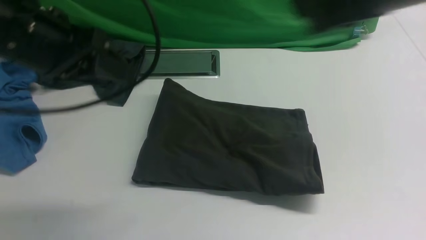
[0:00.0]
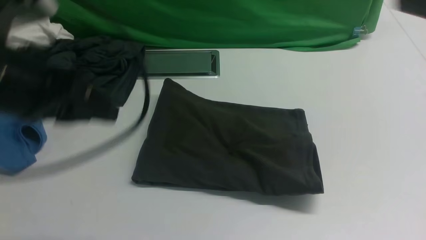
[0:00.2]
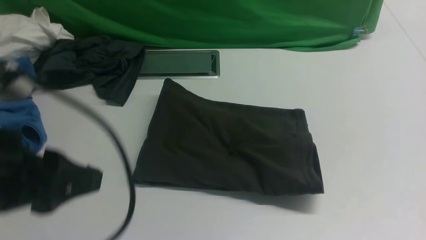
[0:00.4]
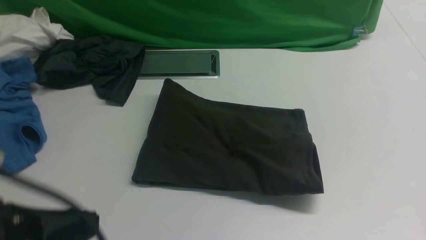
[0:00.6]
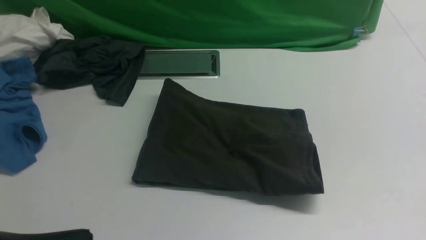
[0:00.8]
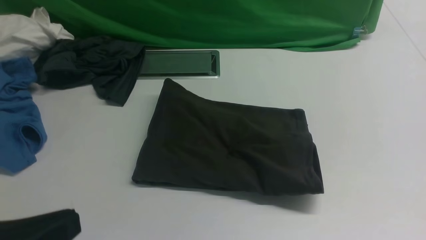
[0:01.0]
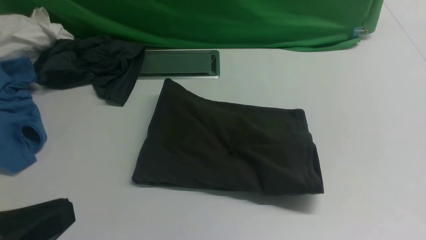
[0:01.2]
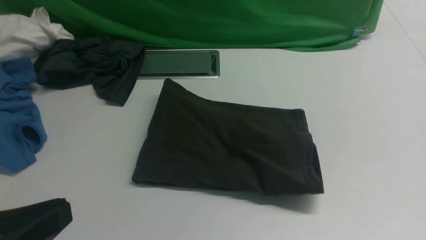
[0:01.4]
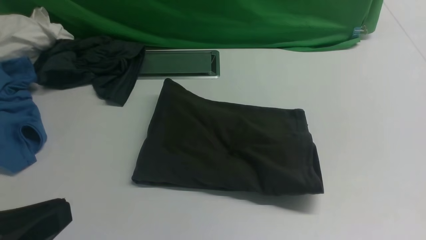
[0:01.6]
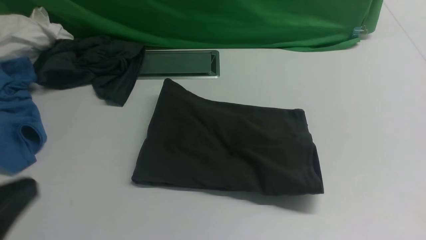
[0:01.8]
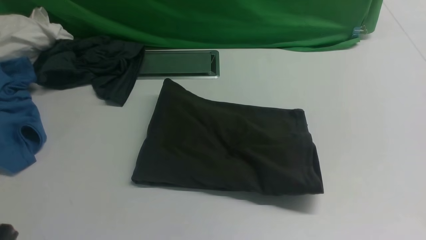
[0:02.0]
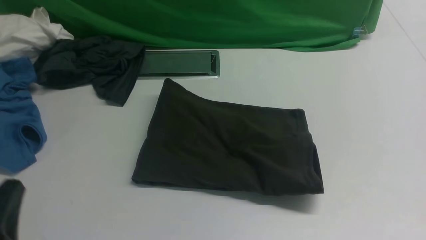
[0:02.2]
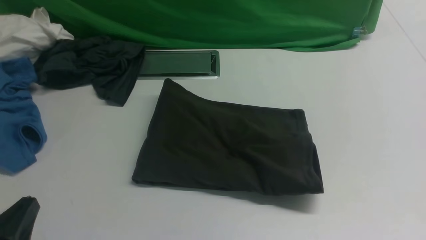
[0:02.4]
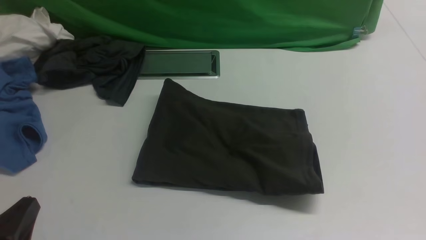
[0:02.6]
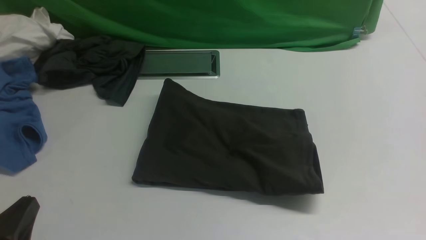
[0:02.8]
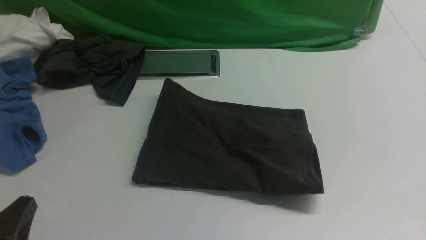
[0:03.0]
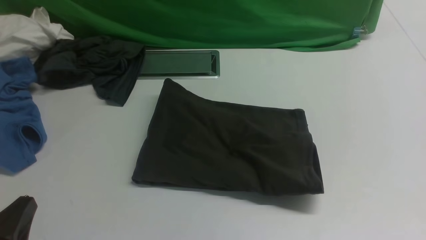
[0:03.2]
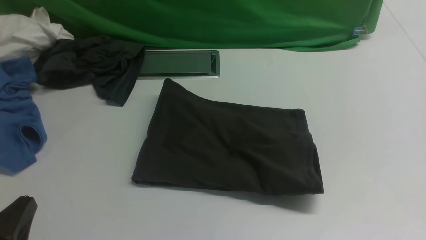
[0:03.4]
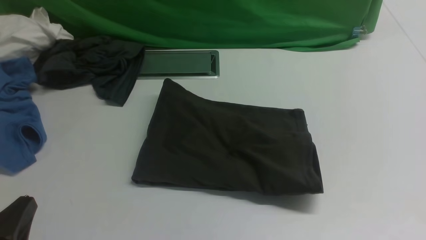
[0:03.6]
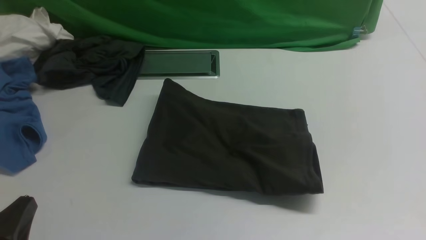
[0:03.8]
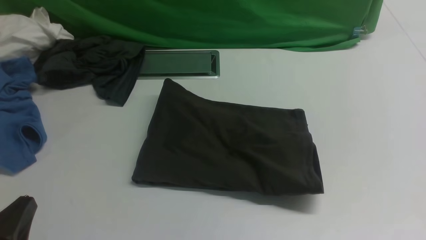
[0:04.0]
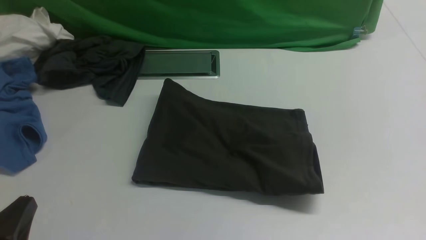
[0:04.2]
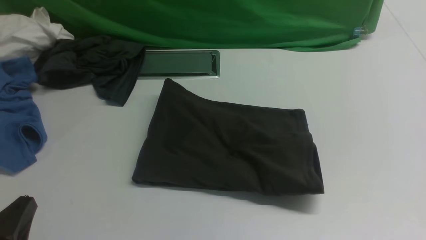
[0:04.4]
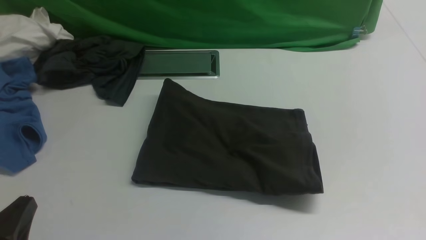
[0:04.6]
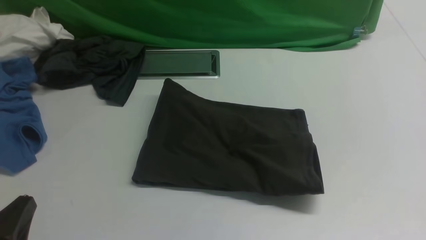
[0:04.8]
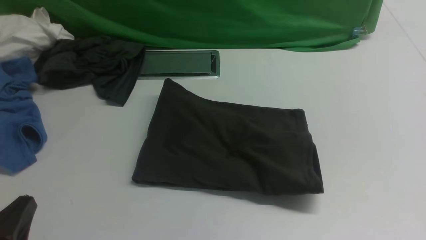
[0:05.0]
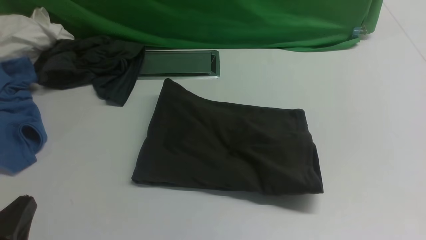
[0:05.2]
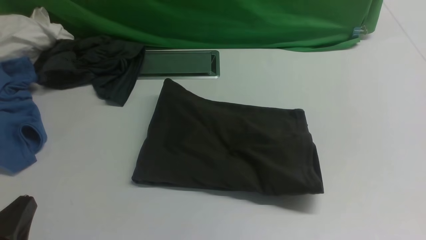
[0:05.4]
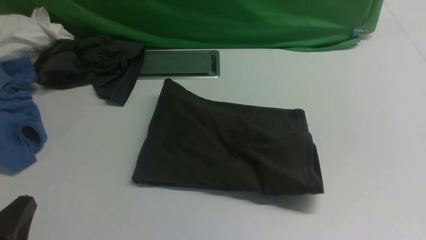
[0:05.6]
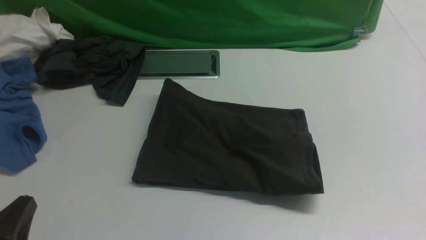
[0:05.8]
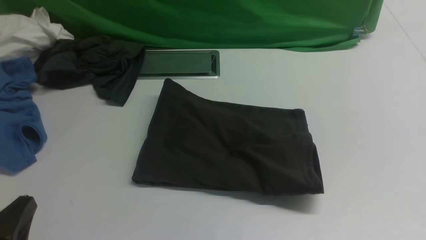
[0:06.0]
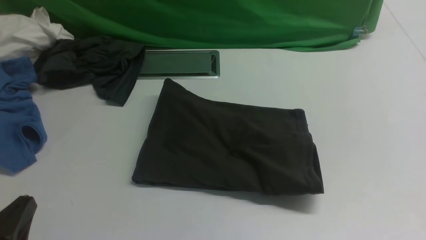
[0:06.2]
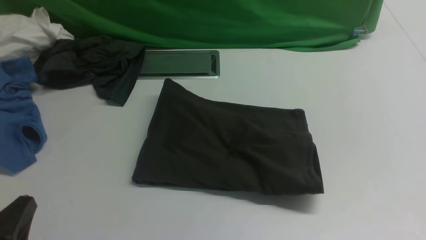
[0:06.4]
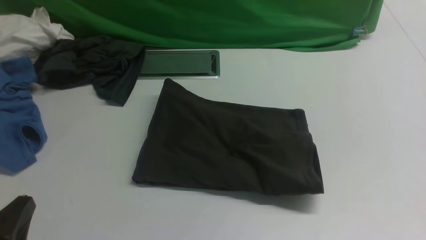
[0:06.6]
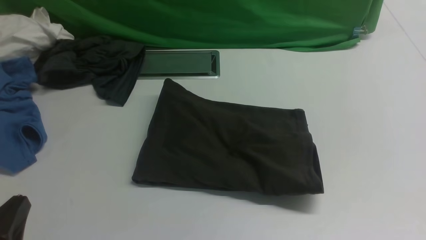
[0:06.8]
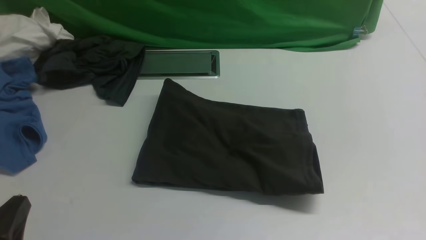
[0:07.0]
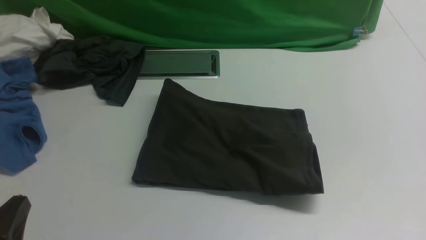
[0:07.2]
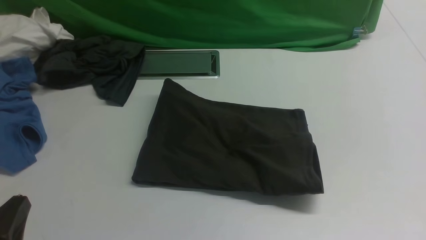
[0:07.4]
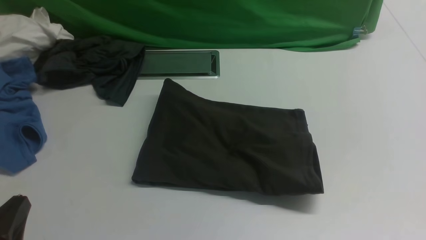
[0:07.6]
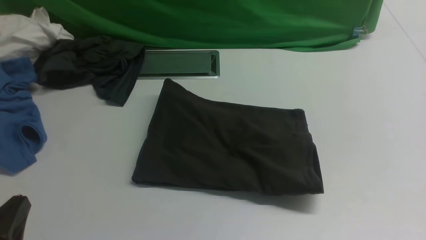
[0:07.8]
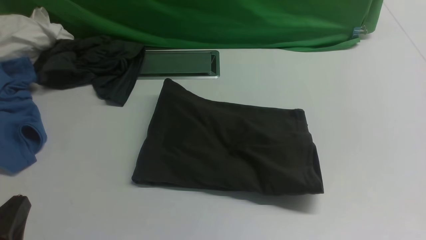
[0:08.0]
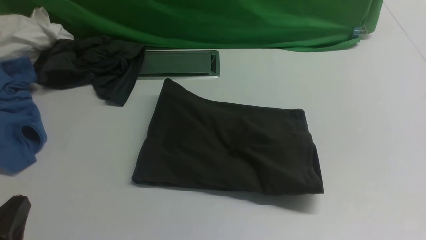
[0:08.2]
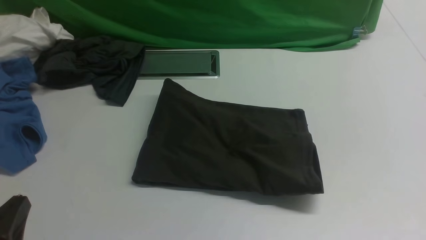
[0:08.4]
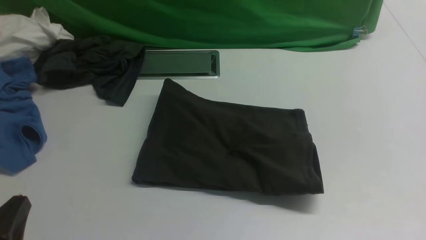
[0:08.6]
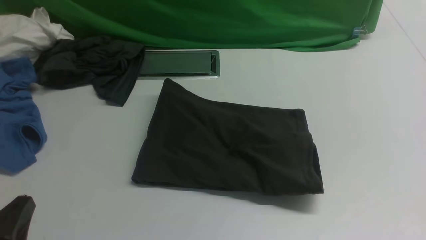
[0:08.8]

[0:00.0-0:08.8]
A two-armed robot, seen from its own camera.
0:00.0 to 0:01.4: The right gripper goes approximately 20 cm backward, downward and to the right, while the left gripper goes roughly 20 cm backward, and closes up.
0:01.4 to 0:03.0: The left gripper moves downward, some 15 cm.
0:05.8 to 0:08.8: Both grippers stay about where they are.
